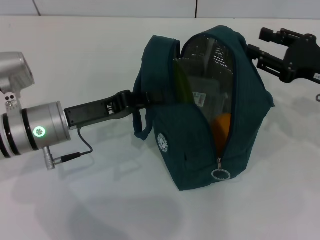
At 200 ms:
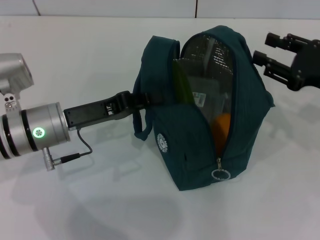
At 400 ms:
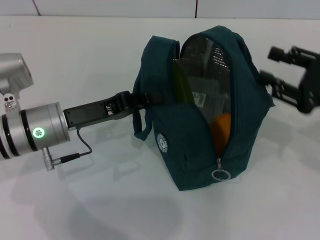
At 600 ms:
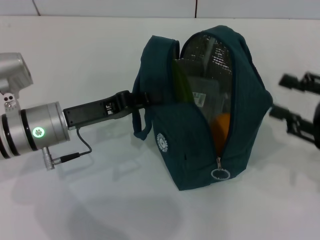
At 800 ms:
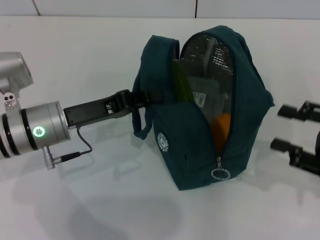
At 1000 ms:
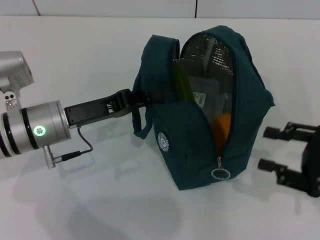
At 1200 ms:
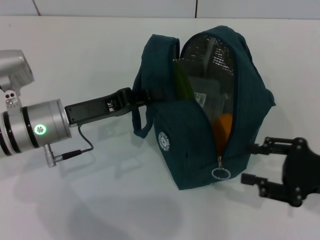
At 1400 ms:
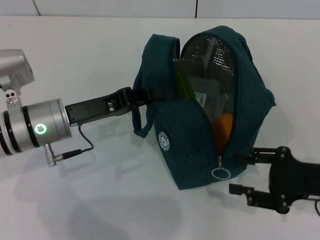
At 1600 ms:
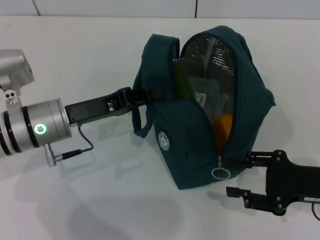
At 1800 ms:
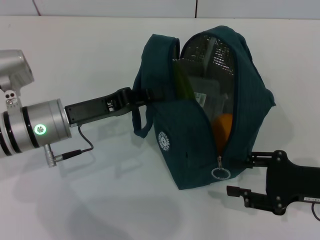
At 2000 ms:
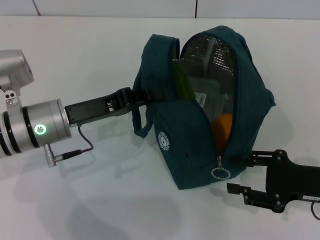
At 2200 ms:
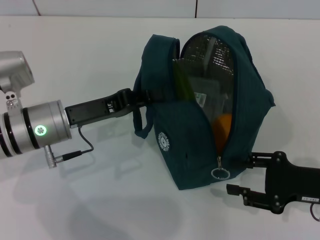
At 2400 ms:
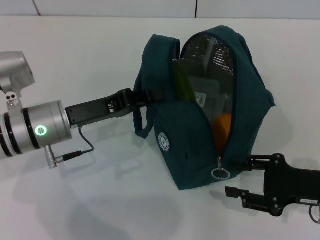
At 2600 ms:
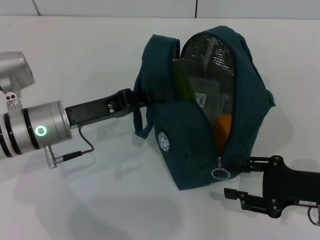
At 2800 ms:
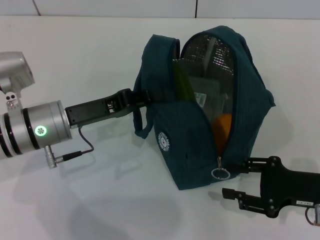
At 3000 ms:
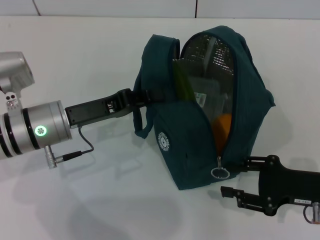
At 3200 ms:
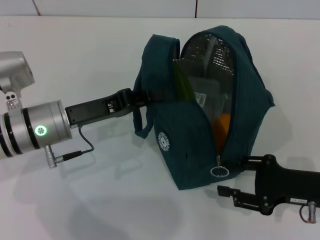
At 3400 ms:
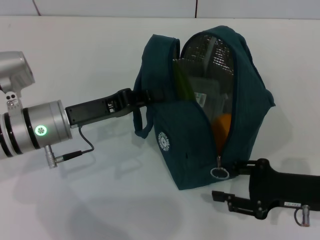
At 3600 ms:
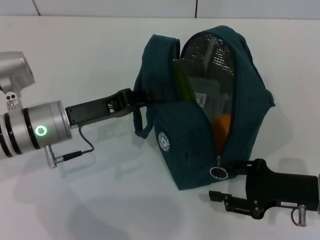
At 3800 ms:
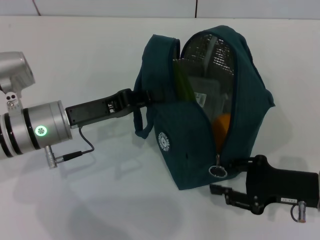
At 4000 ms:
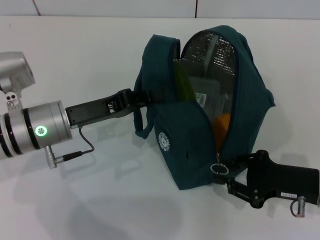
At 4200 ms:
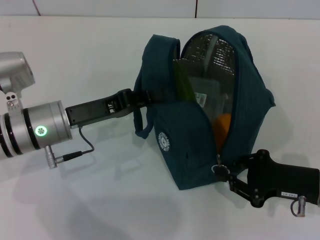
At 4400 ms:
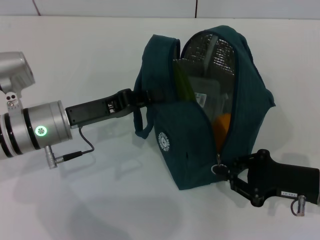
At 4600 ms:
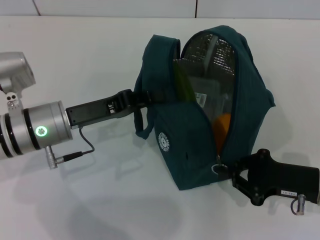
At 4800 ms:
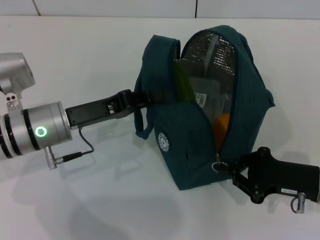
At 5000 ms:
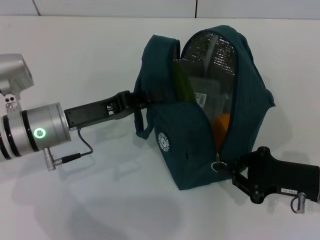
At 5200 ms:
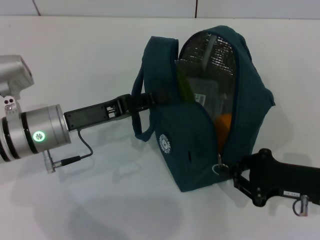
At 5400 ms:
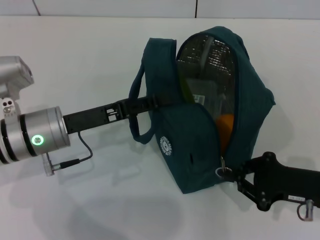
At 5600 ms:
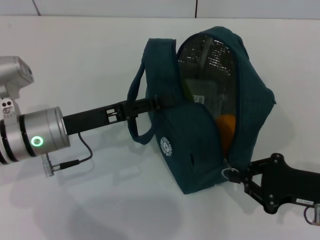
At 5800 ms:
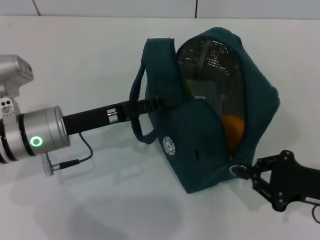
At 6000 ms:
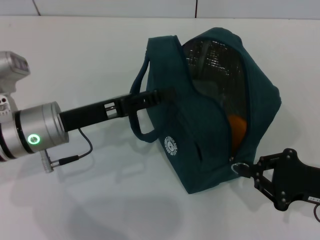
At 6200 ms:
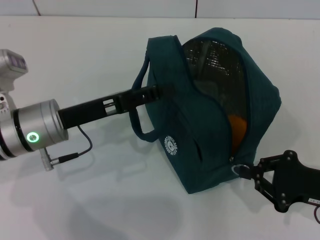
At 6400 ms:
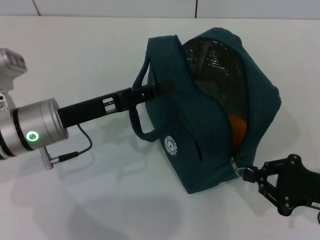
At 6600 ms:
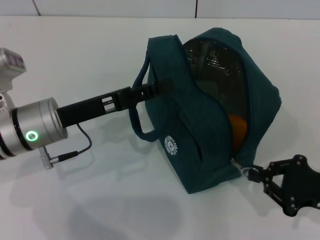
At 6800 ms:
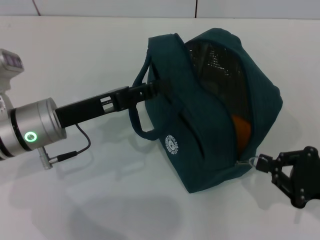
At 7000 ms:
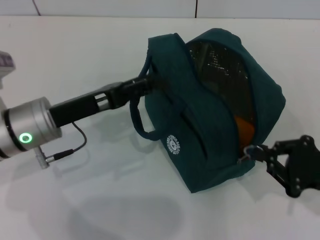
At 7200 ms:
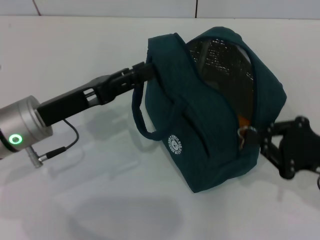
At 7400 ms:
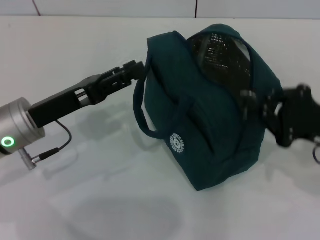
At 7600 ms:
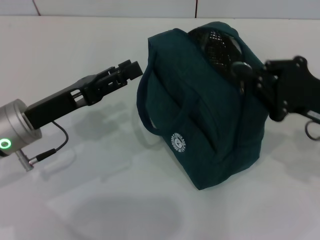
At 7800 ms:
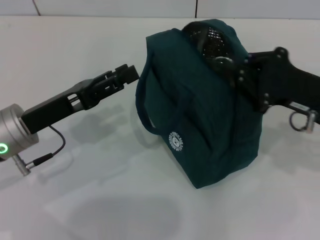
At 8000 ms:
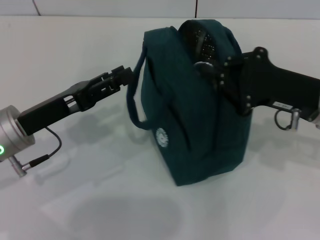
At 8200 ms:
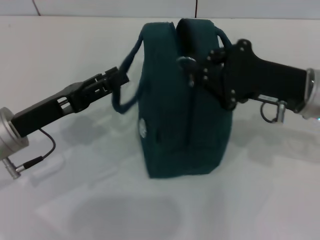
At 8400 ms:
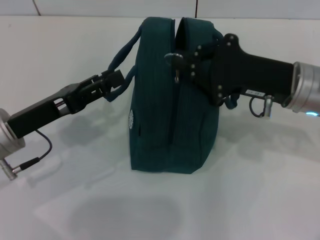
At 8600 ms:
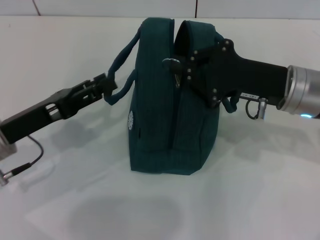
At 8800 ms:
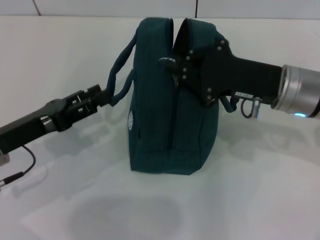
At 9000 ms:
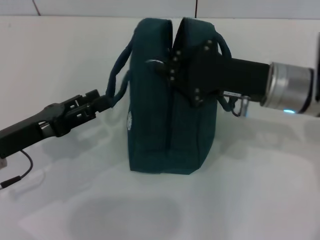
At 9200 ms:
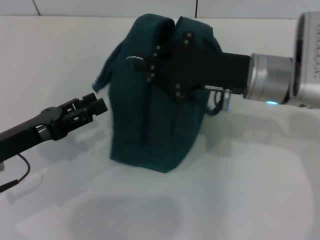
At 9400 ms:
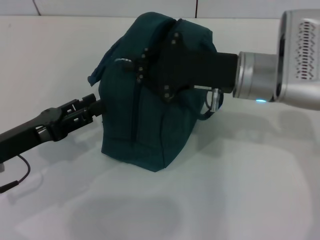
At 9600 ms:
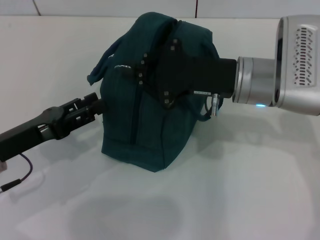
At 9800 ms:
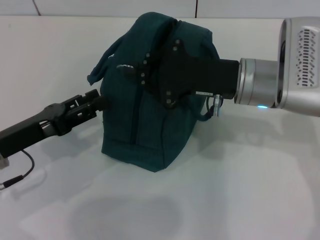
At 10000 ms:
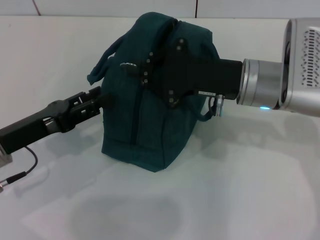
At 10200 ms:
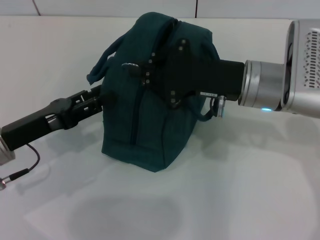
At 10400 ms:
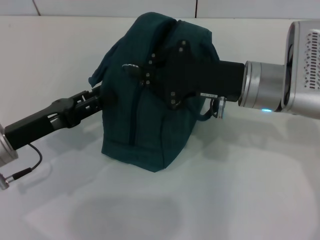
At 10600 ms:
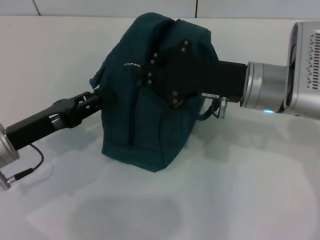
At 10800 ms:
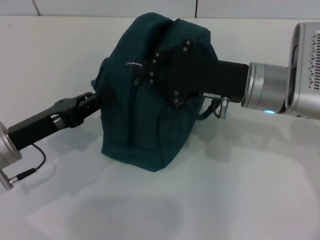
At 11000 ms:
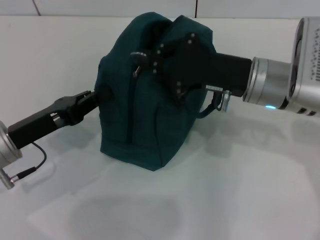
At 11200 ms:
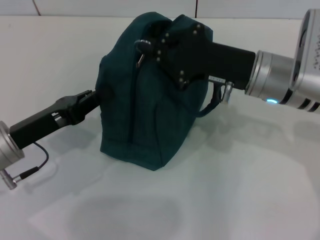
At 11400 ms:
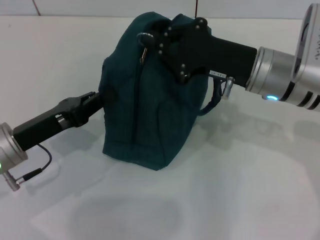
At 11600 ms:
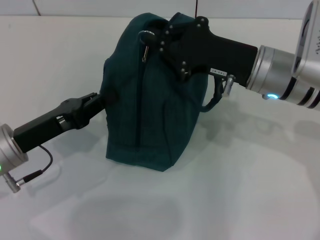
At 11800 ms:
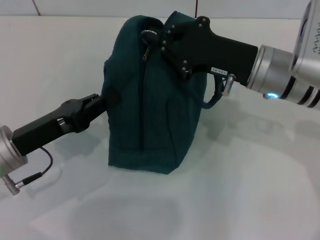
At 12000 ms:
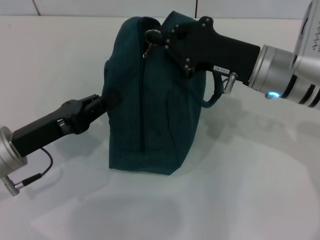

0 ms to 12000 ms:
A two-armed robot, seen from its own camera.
0 ms to 1600 ms: The right gripper shifts some 10 cm backward and downward.
1600 ms to 3000 ms: There are only small adjustments of the grippers.
3000 ms to 4400 ms: The right gripper closes.
4400 ms to 6000 ms: The left gripper opens.
6000 ms to 7600 ms: The right gripper travels upward and forward by approximately 10 cm.
7600 ms to 9000 ms: The left gripper shifts by roughly 5 cm, while the right gripper is displaced to the left by roughly 10 cm.
9000 ms to 10400 ms: There are only small adjustments of the grippers.
10400 ms to 12000 ms: The left gripper closes its fingers.

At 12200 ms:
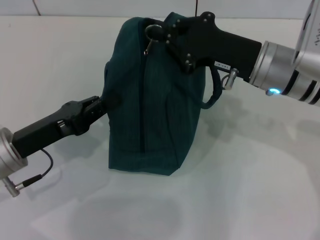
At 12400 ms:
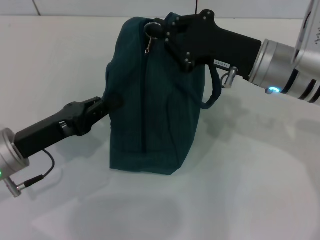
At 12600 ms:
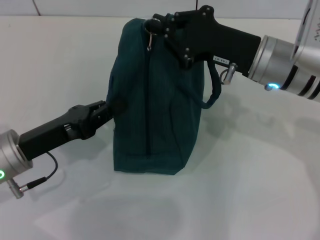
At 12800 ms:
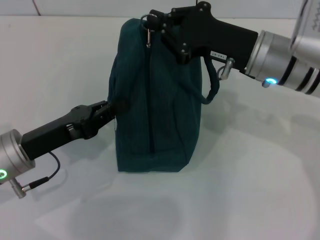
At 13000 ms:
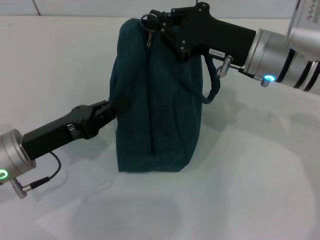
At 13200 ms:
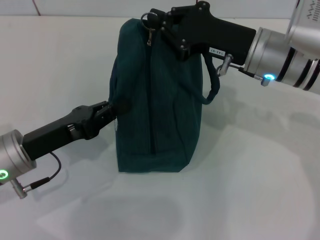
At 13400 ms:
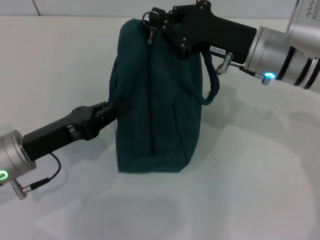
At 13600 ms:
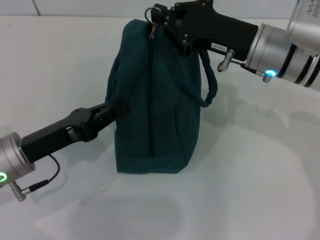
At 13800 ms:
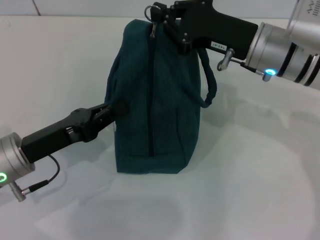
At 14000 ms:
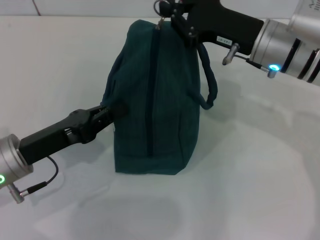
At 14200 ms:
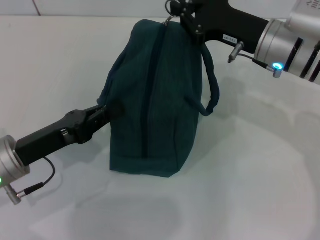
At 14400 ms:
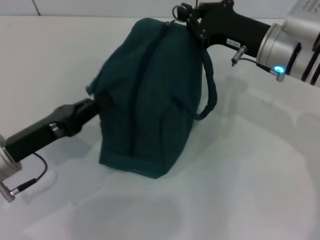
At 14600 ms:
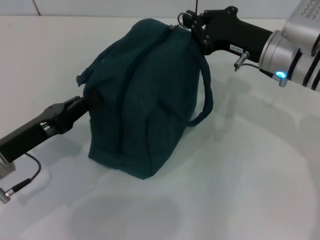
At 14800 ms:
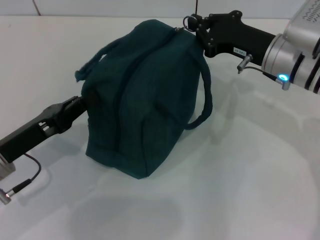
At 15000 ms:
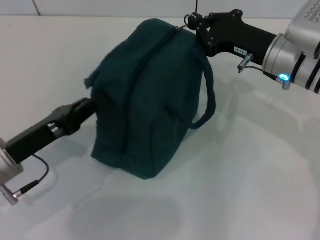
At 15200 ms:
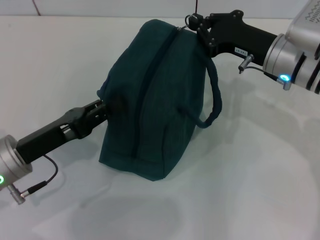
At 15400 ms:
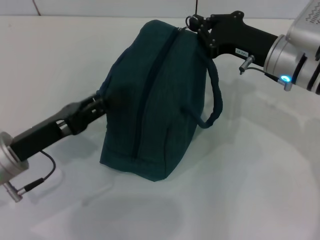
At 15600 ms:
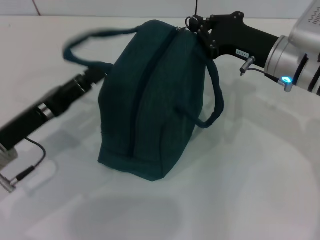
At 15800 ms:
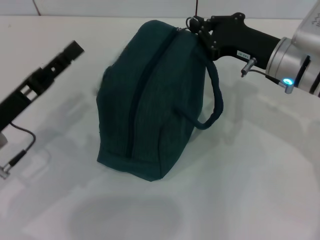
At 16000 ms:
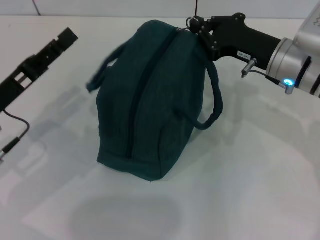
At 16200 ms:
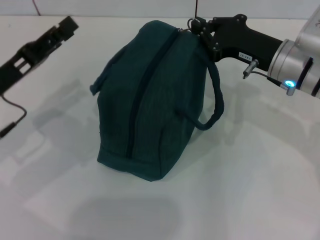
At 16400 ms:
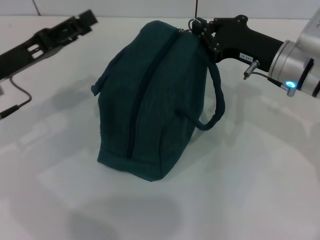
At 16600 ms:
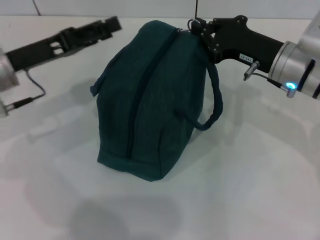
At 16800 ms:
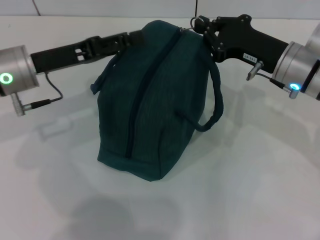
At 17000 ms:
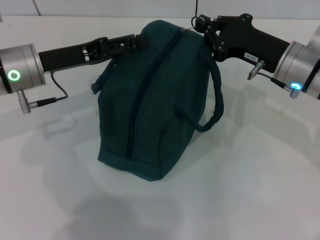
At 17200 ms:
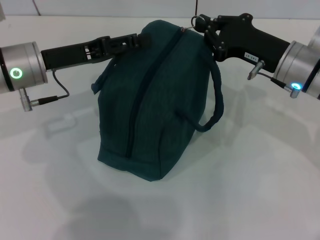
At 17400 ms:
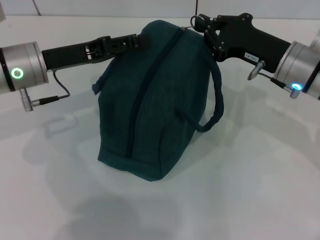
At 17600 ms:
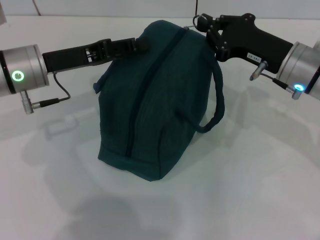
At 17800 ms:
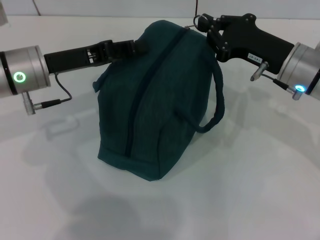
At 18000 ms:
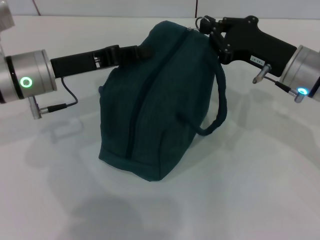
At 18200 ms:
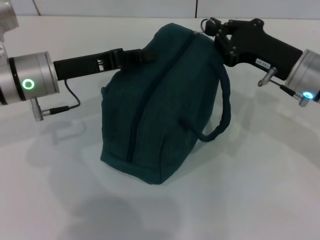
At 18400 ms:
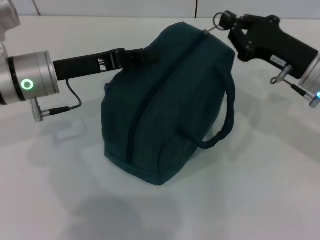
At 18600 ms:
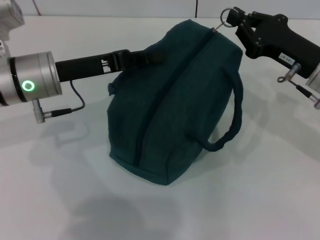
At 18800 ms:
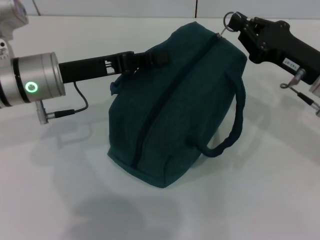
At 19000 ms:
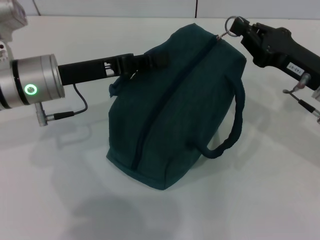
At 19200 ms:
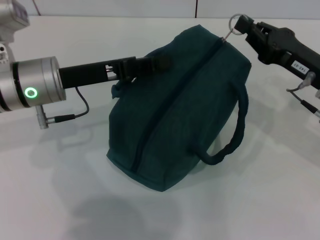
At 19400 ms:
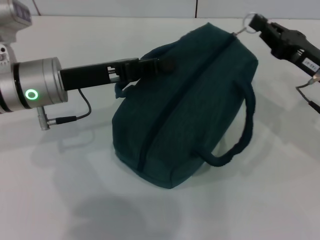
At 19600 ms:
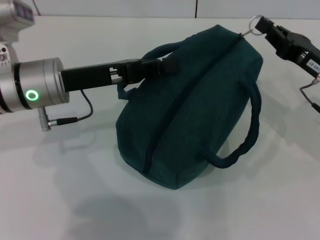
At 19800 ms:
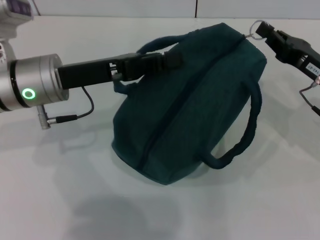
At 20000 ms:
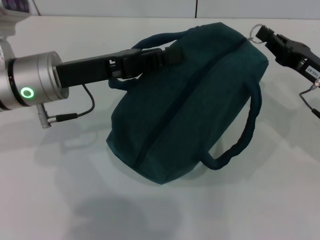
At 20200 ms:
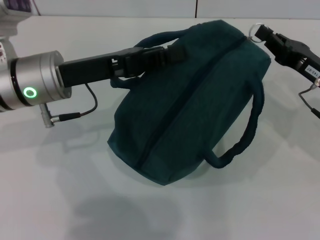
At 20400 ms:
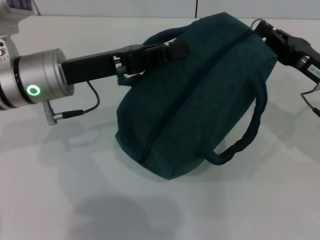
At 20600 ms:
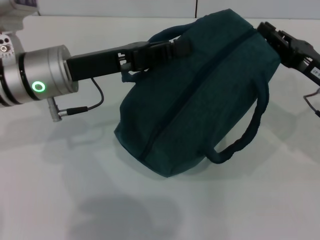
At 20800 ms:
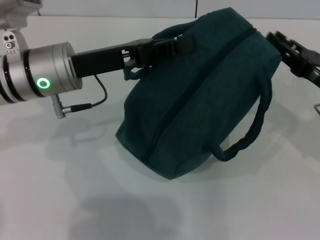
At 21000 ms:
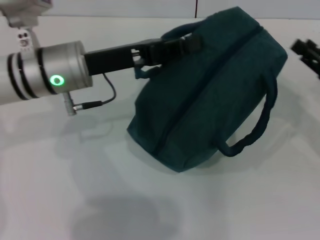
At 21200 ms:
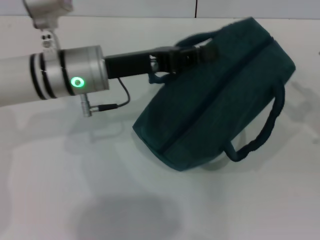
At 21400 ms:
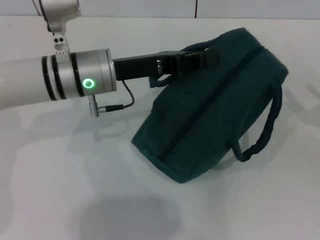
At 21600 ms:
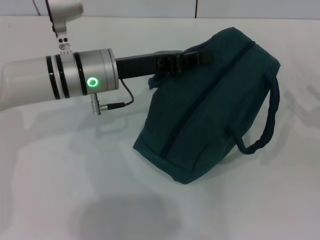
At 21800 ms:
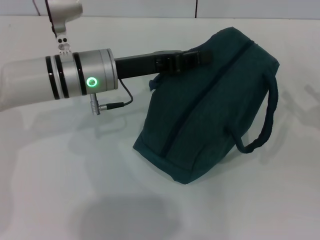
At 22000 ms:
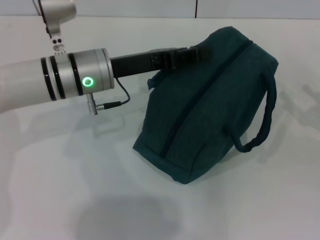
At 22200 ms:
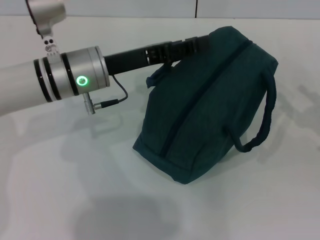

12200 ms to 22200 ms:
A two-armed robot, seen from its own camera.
Step, 12200 ms to 20600 ms: Zip up the lunch bag with your right hand.
12200 ms to 15000 ms: The grippers stay close to where they were, moving slightly.
15000 ms to 16400 ms: The left gripper moves forward and upward, roughly 10 cm, and opens.
16400 ms to 18000 ms: The left gripper shifts about 5 cm to the right, and closes.
18000 ms to 19400 ms: The right gripper travels to the right by some 5 cm.
20800 ms to 22200 ms: The right gripper goes some 5 cm to the right, and opens up.
